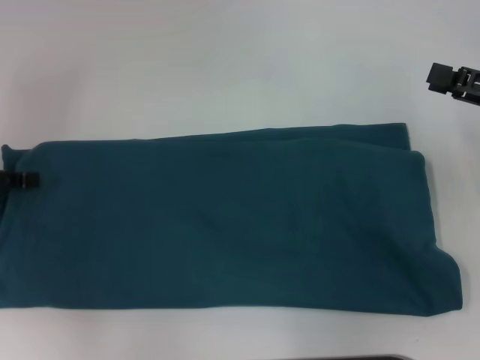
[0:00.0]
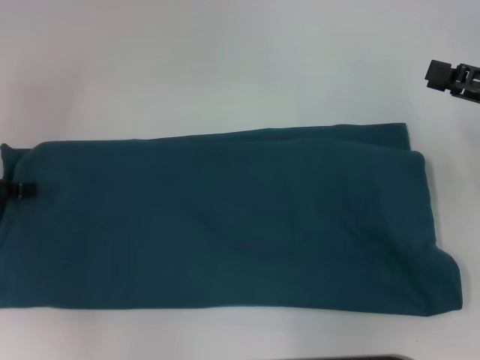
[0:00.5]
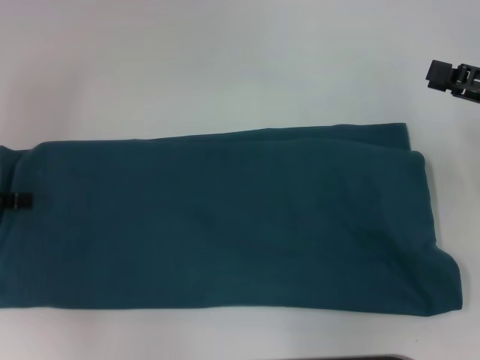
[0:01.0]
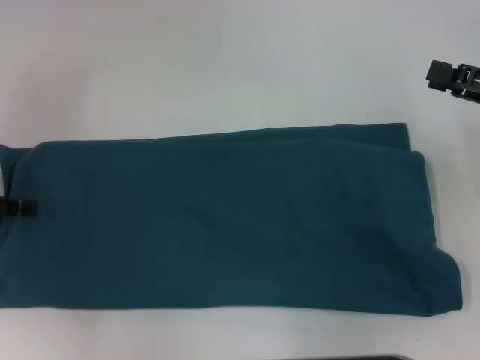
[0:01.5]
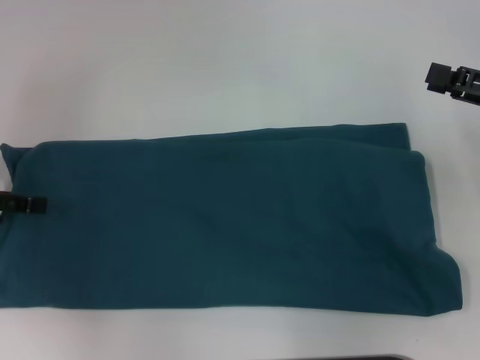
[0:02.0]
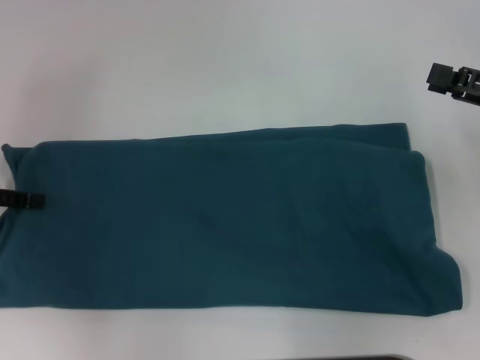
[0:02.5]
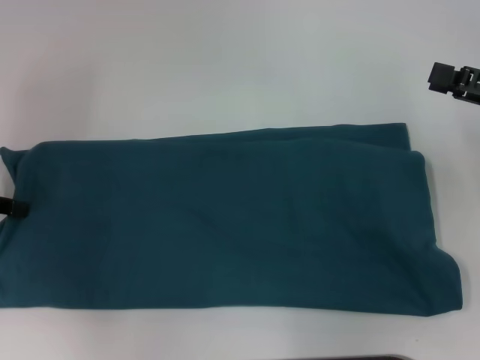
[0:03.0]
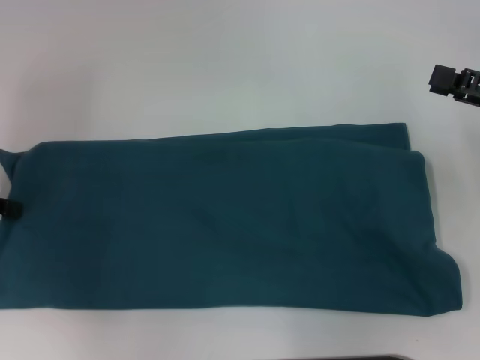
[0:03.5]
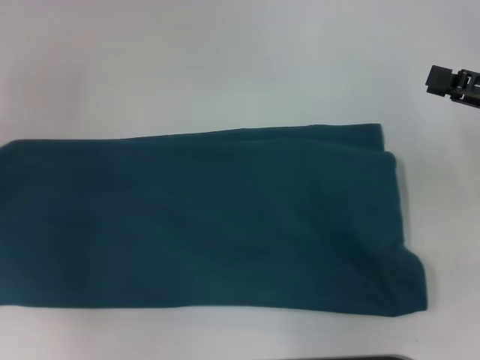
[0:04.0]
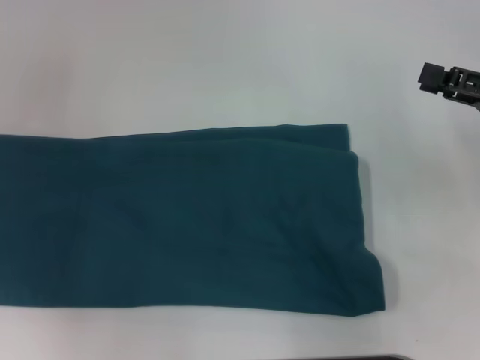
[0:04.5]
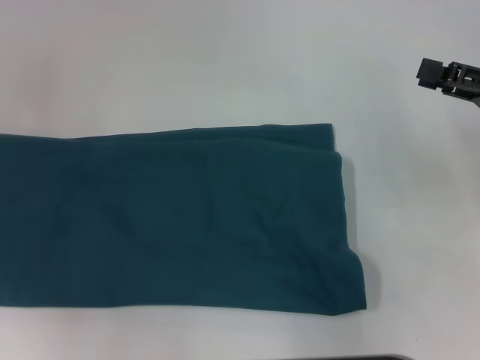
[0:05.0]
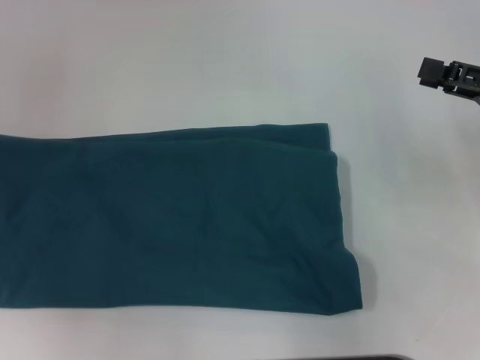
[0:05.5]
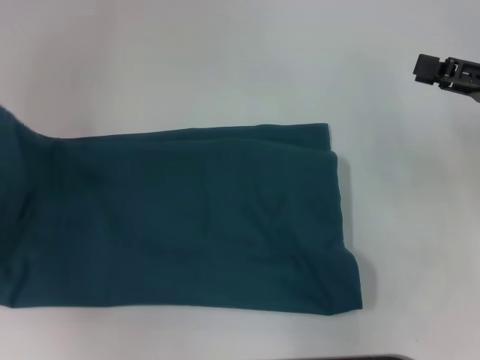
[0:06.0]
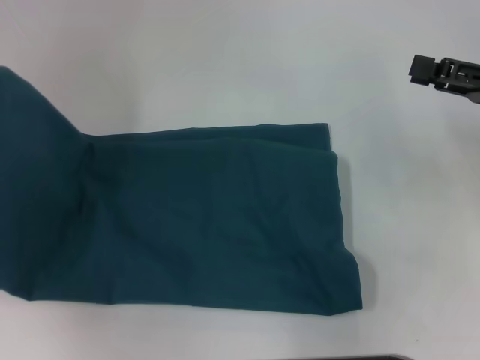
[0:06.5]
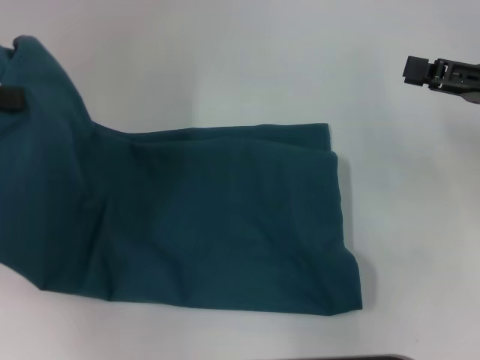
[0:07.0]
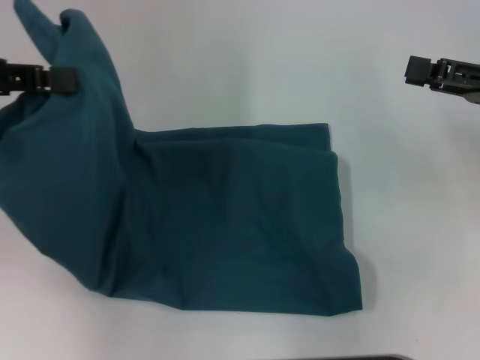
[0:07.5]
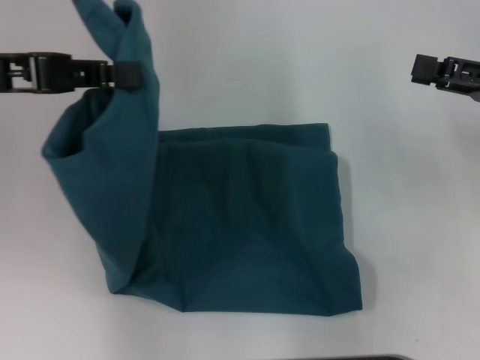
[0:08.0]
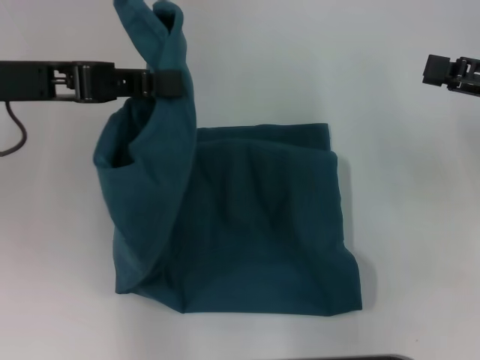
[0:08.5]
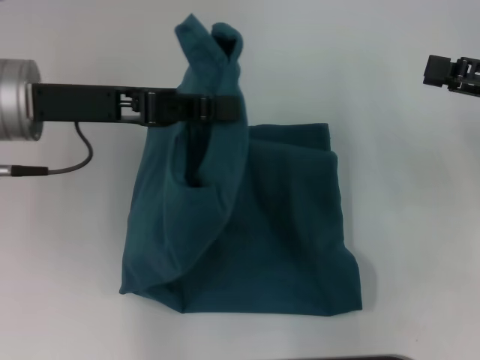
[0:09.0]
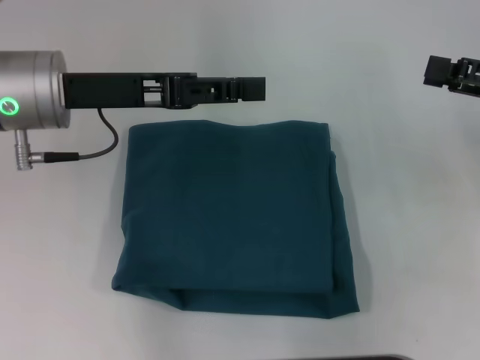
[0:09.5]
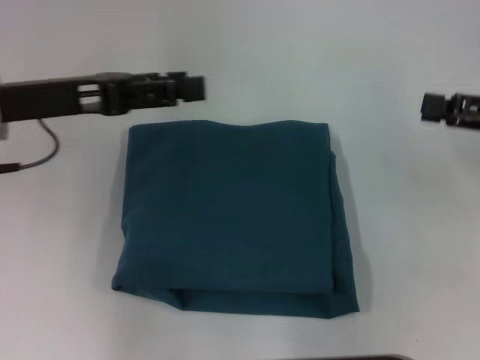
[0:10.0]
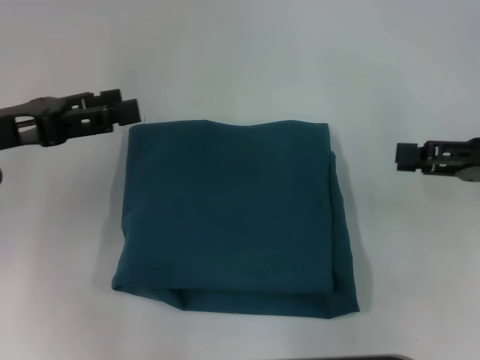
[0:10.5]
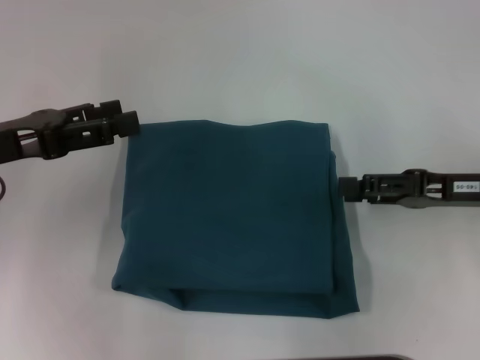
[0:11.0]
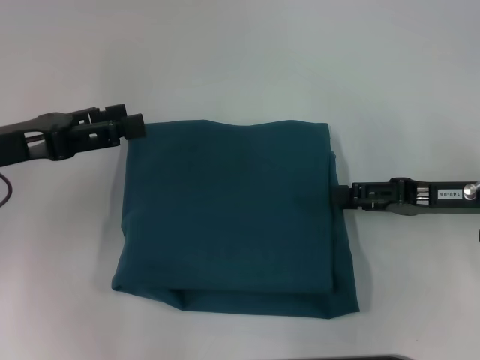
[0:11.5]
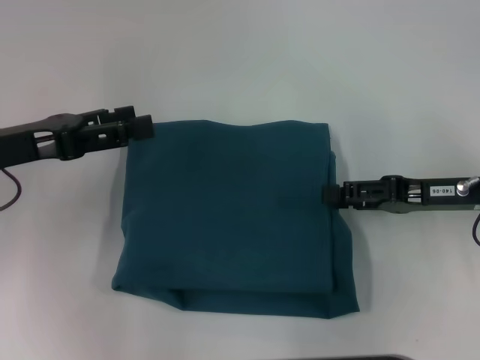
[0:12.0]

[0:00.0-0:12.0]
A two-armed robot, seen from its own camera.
Step, 0:00.0 to 0:09.0: Fold the clothes to the left.
0:02.0 to 0:04.0: The left gripper closes.
0:04.0 to 0:06.0: The left gripper heads upward, covering approximately 5 cm.
0:06.0 to 0:08.0: The left gripper is displaced to the right by about 10 cm.
0:08.0 to 0:10.0: The left gripper goes roughly 5 cm downward, travels to the right and back again, roughly 10 cm each way, and opens.
0:10.0 to 0:12.0: The right gripper moves to the left and downward, approximately 10 cm, while the left gripper moves about 5 cm.

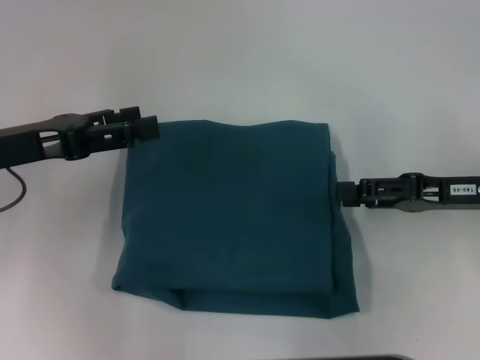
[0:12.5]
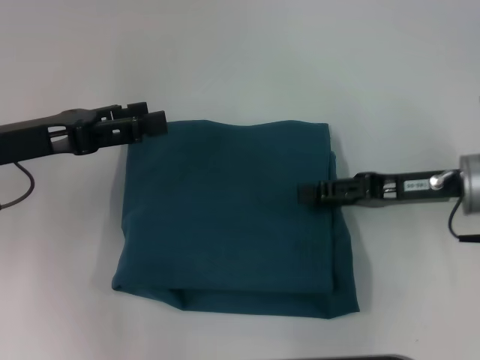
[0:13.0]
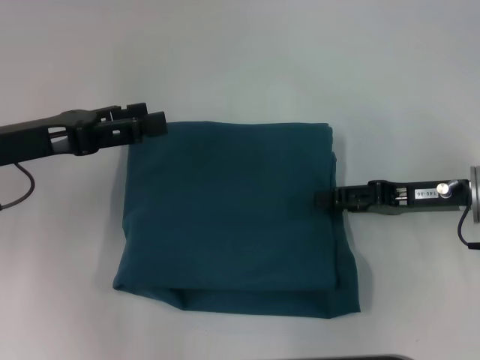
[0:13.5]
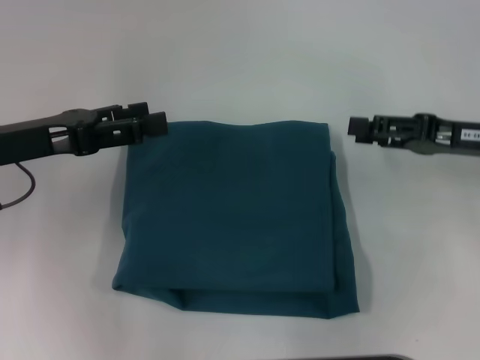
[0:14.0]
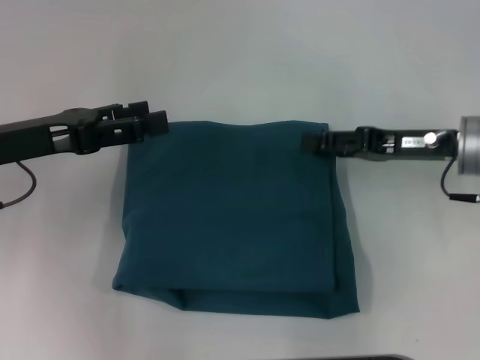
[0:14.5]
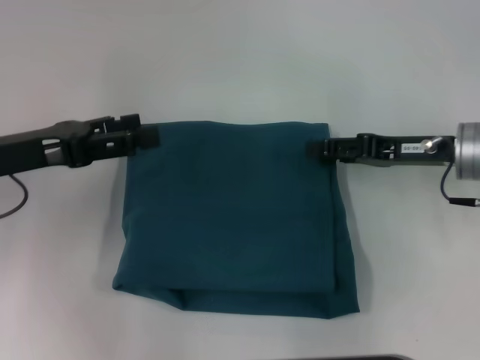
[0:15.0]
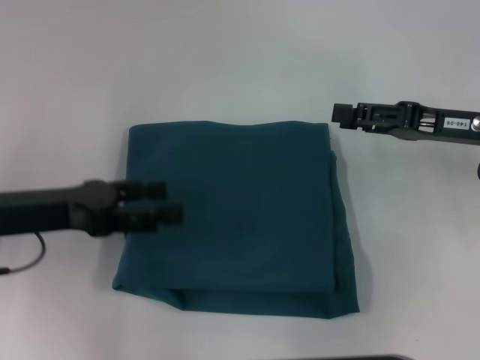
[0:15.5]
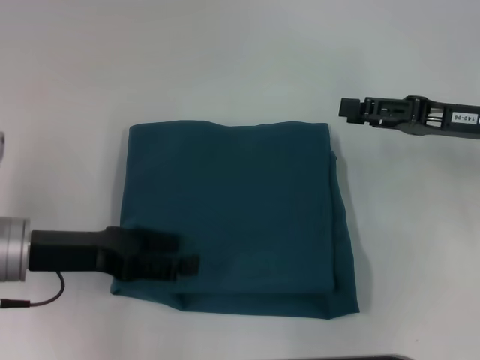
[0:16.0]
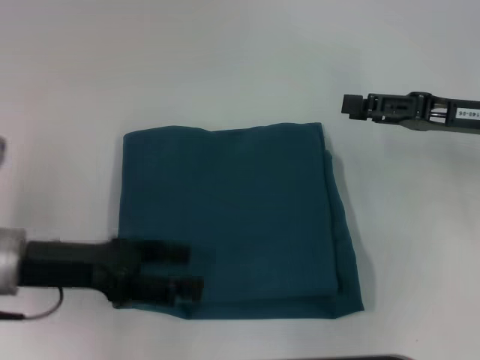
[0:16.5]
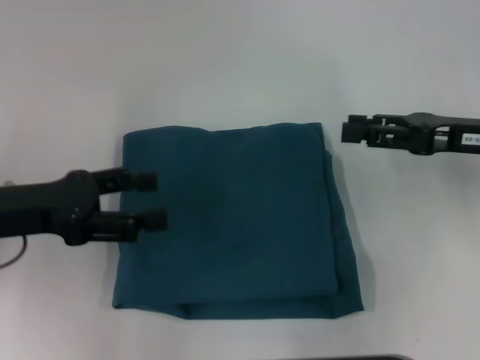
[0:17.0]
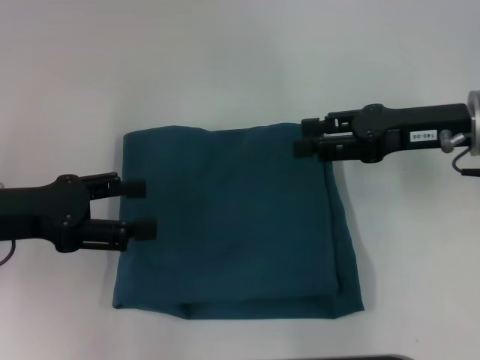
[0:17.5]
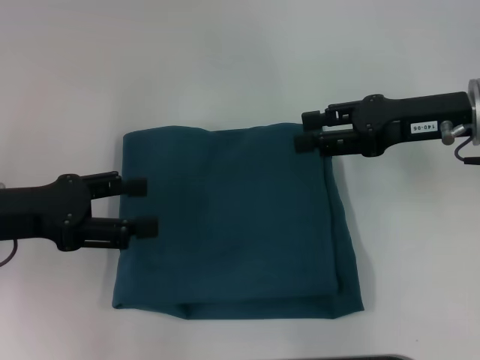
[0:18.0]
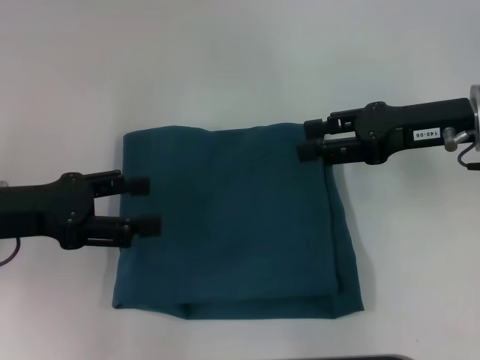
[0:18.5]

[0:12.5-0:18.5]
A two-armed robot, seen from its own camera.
0:12.5 to 0:14.5: The right gripper changes place by some 5 cm.
0:14.5 to 0:16.5: The left gripper is displaced backward and downward by approximately 10 cm.
0:16.5 to 0:18.5: The left gripper changes place by approximately 5 cm. The right gripper ends up some 5 cm from where it was.

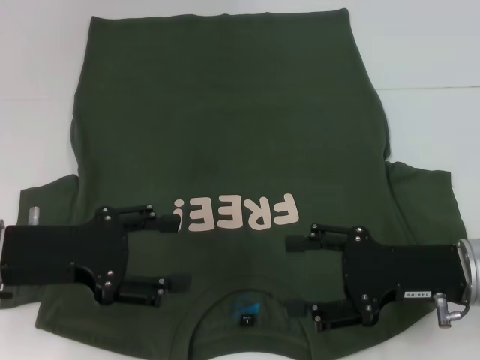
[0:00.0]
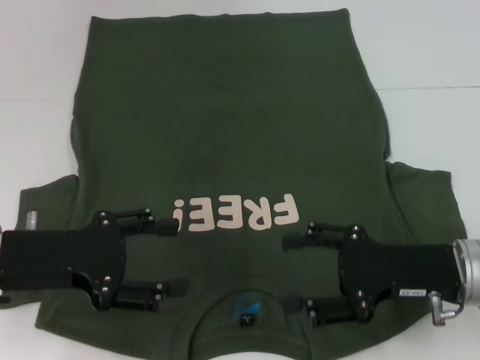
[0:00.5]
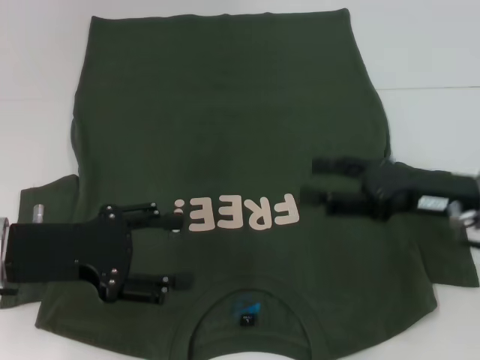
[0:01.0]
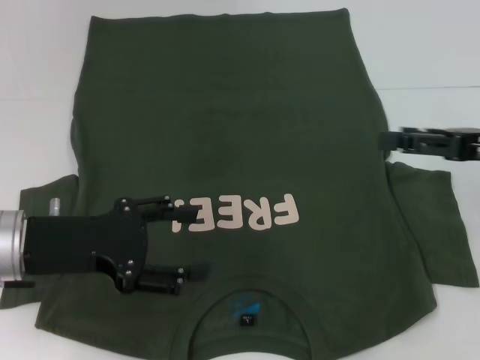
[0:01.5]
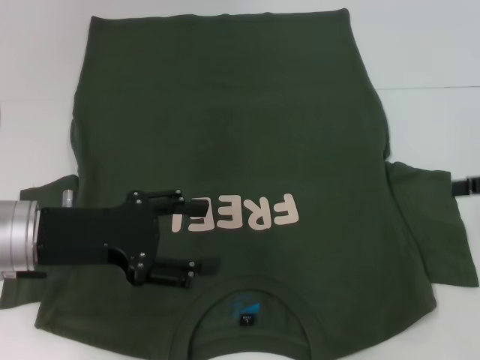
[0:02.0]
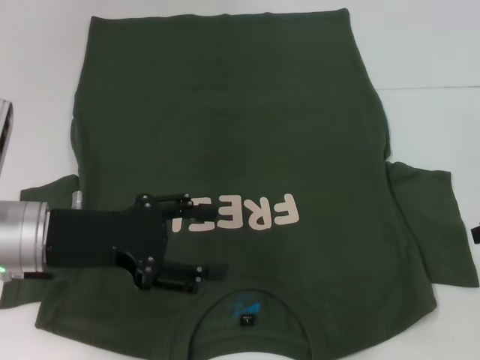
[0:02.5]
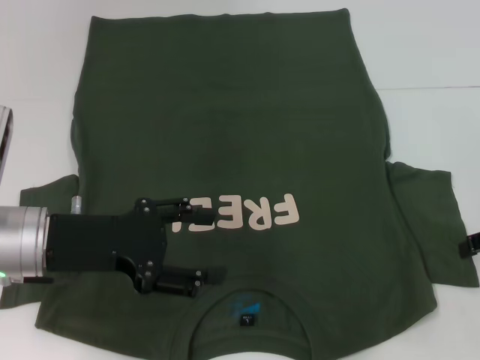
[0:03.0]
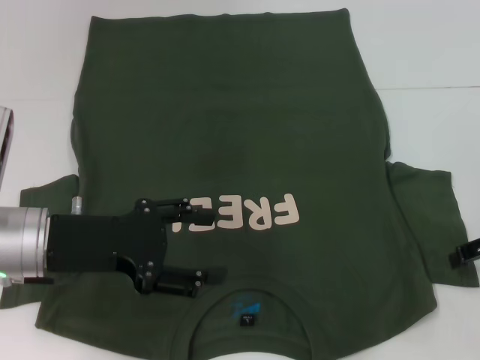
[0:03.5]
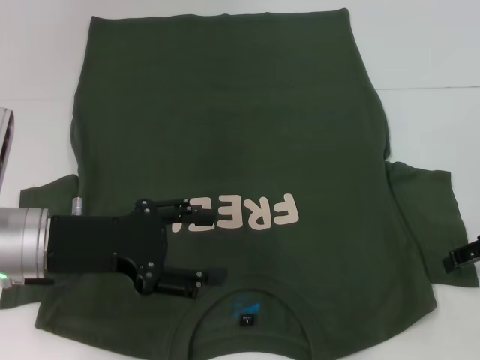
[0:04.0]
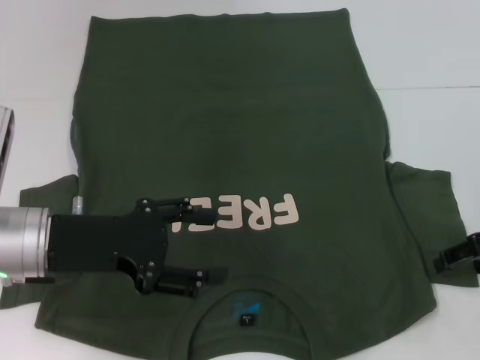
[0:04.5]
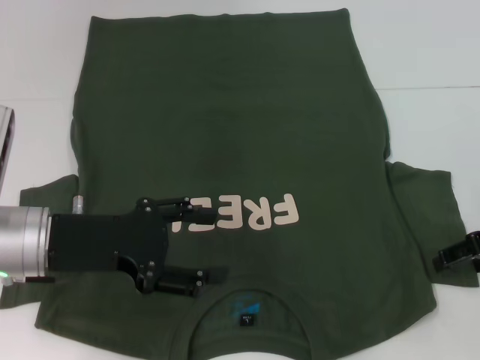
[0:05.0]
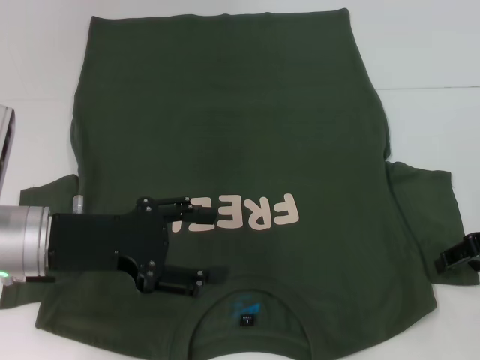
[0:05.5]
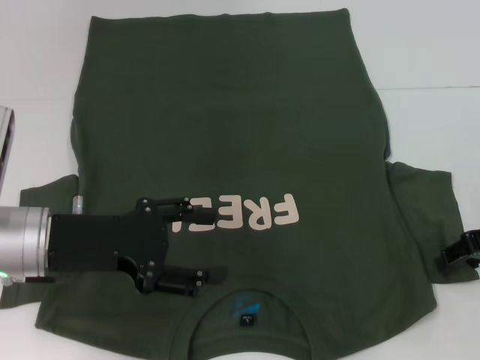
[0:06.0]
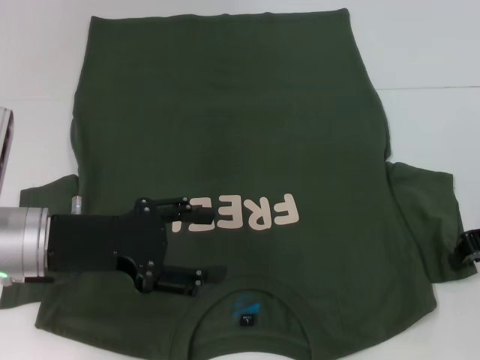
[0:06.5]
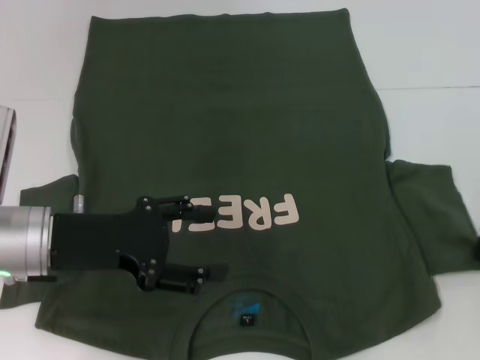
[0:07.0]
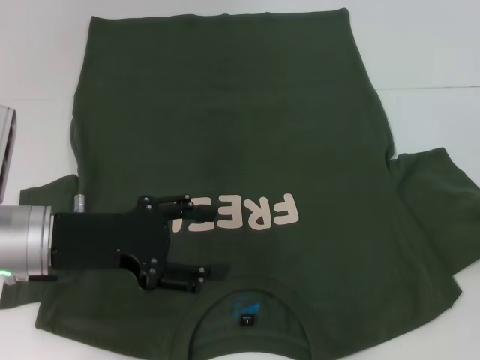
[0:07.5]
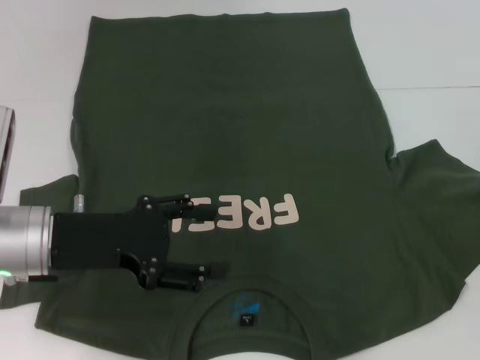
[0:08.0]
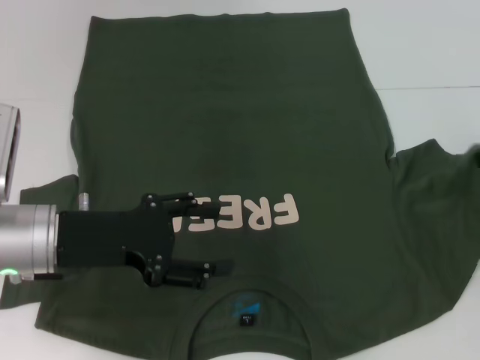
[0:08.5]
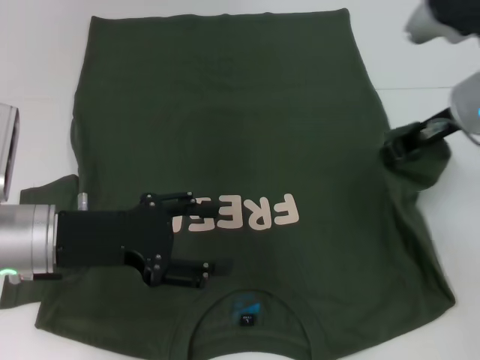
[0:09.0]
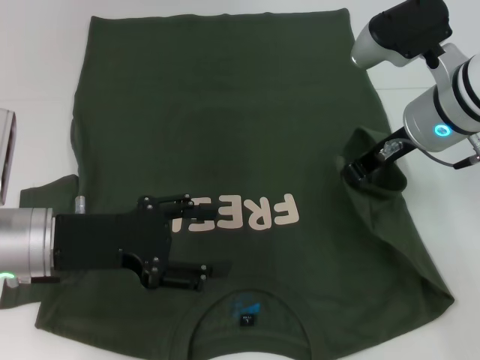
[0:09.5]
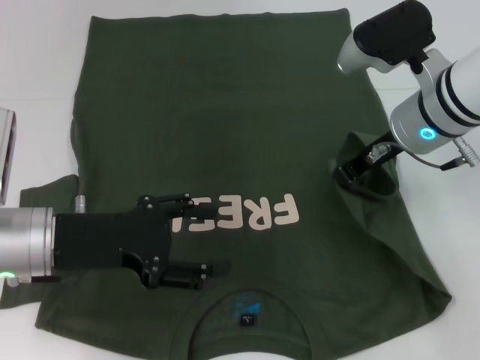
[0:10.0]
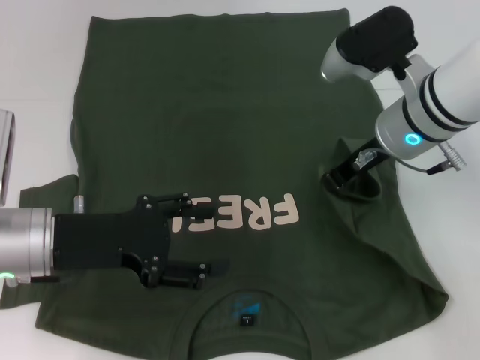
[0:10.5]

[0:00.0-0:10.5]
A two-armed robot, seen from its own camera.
0:00.0 to 0:02.0: The right gripper goes roughly 15 cm to the right and upward.
0:02.0 to 0:04.0: The right gripper shifts by approximately 5 cm.
0:04.0 to 0:06.5: The right gripper closes up.
0:06.5 to 0:08.5: The right gripper shifts about 5 cm upward.
0:08.5 to 0:10.5: The right gripper travels to the left by approximately 15 cm.
